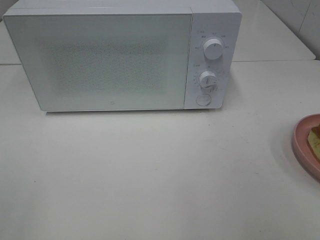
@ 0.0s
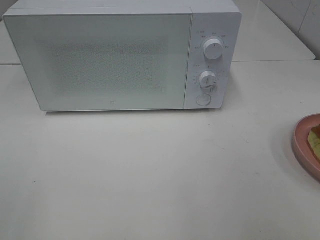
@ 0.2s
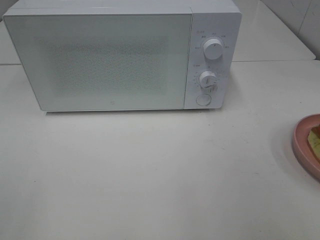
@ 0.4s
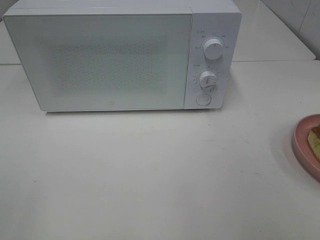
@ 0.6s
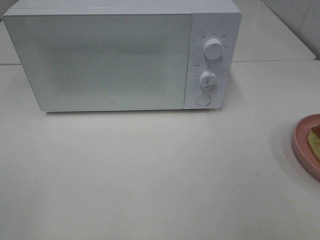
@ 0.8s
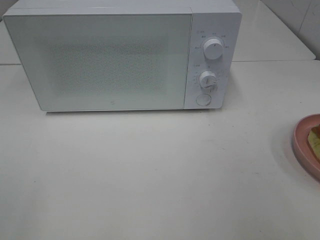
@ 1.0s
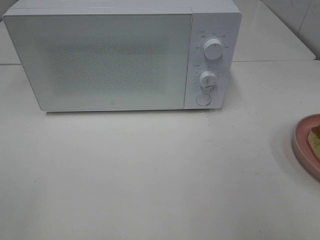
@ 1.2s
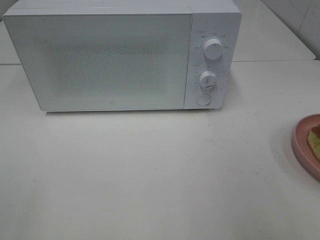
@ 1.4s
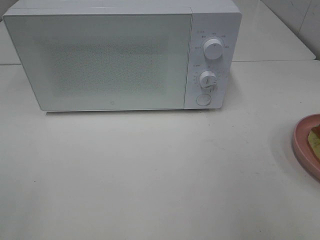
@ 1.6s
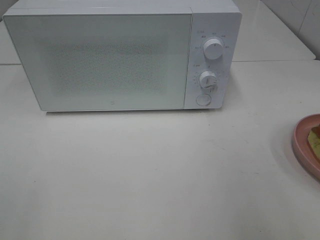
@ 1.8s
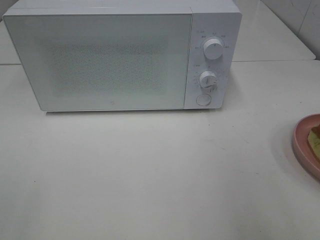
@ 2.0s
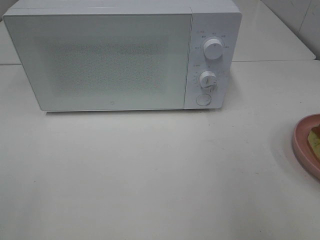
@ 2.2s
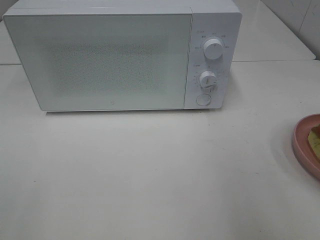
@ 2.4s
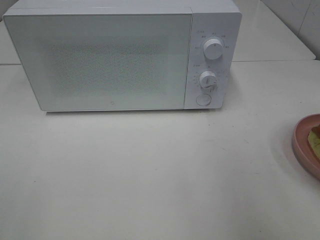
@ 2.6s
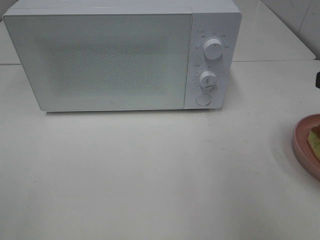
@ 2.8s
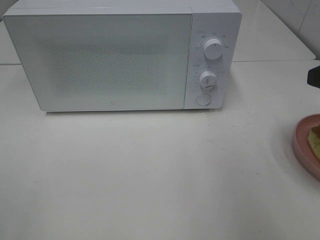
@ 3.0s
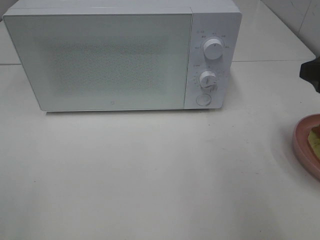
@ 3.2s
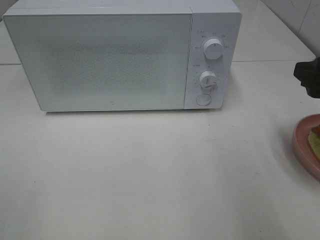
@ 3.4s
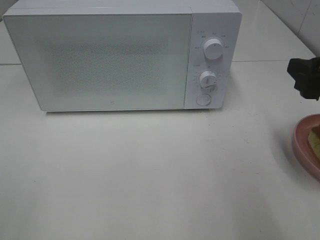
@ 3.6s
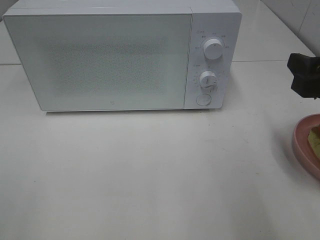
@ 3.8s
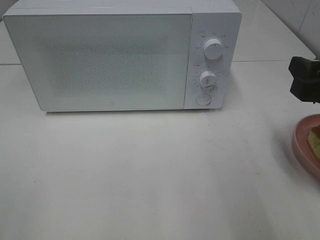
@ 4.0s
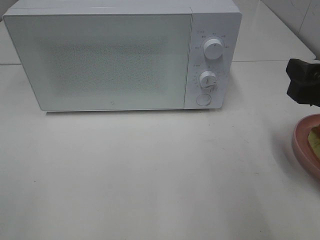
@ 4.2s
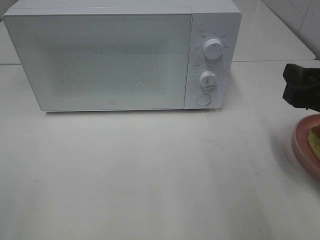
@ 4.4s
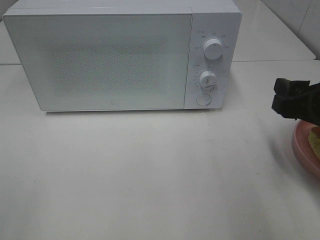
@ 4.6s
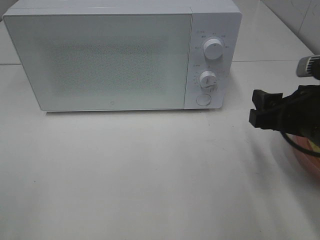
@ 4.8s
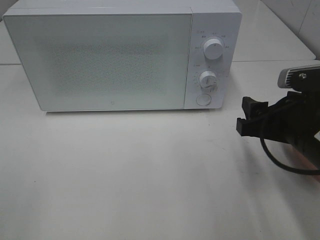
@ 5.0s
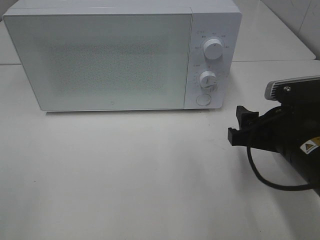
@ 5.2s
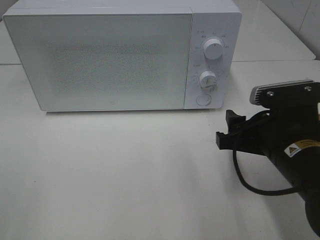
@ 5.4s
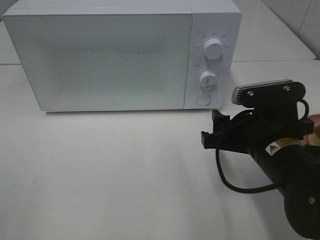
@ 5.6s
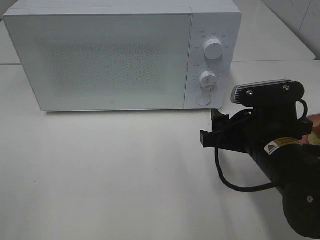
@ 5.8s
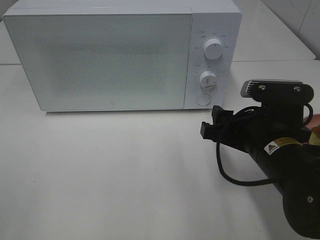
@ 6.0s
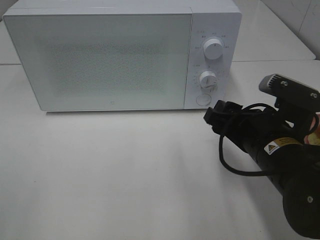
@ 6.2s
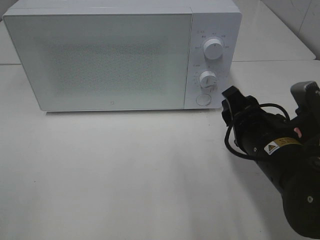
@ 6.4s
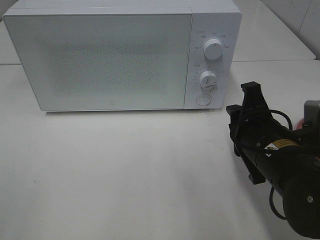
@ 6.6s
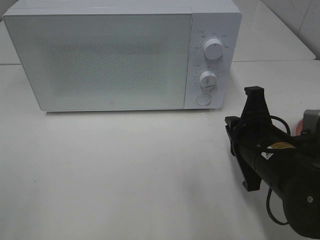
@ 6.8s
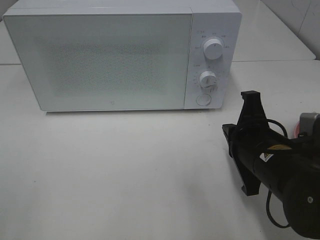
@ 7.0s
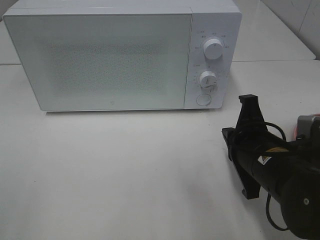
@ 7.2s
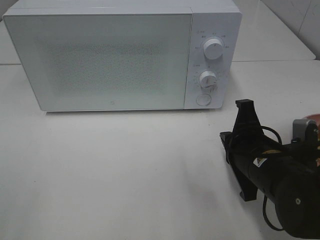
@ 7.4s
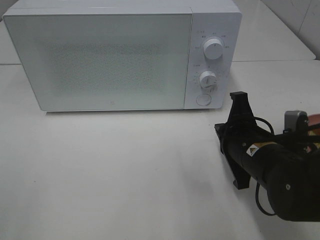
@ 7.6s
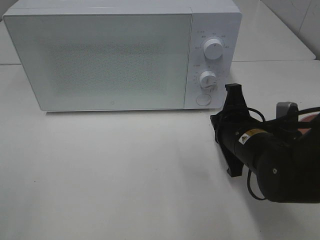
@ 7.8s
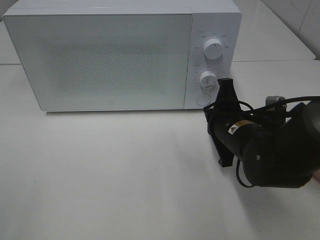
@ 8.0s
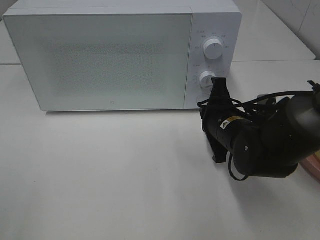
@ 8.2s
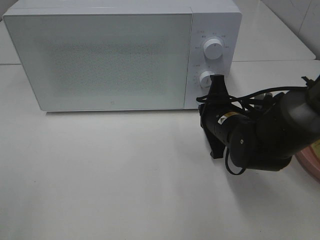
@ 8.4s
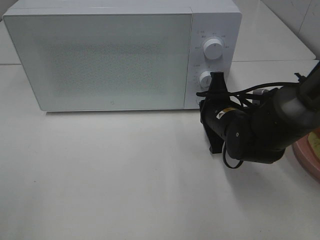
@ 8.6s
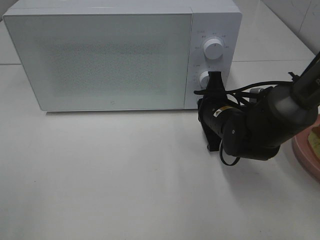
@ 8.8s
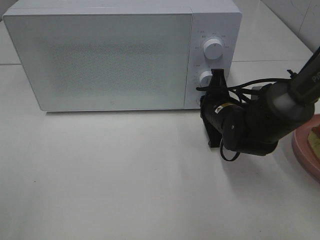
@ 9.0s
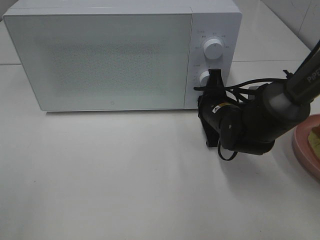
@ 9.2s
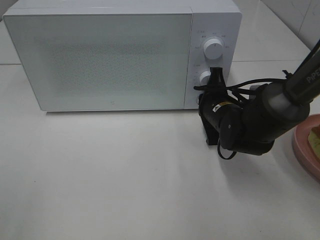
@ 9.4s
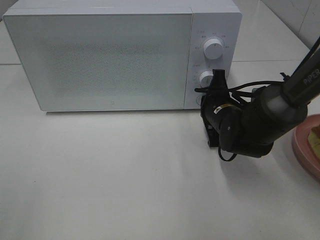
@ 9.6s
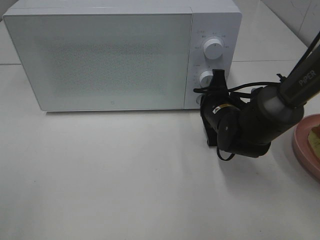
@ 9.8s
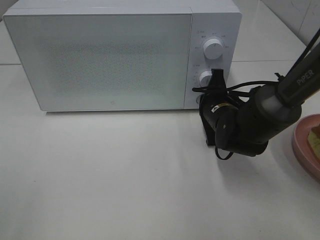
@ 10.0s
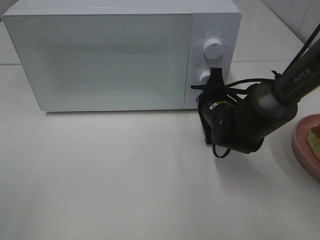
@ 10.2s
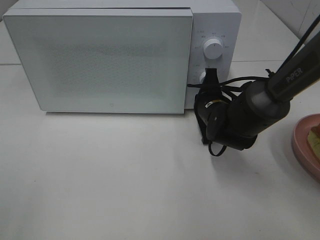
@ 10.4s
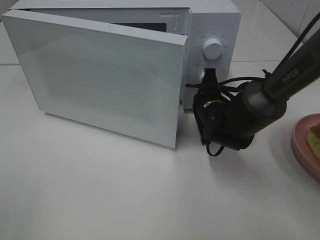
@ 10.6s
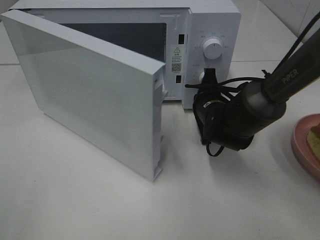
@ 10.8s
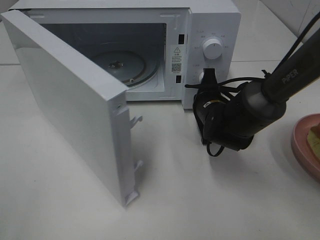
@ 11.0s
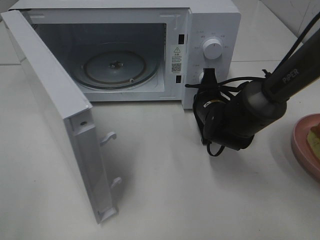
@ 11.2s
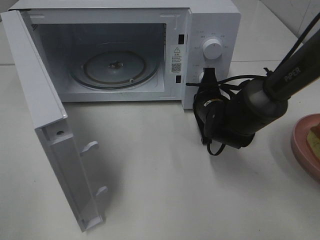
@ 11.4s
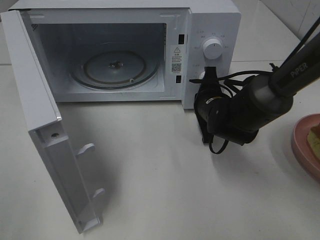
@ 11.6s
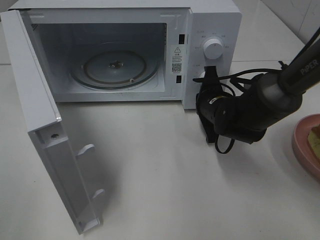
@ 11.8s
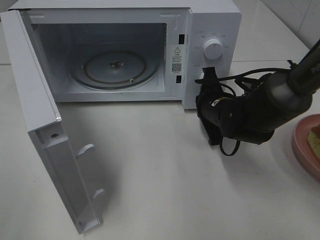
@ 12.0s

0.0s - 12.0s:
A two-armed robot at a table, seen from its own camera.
Task of the whole recording: Heat Sandwich.
3.0s - 4.4s: The right gripper is displaced downward by about 5 cm.
4.4s - 6.0s: The right gripper moves to the left and downward, some 10 cm.
6.0s - 7.6s: The right gripper closes up.
7.6s - 9.0s: The right gripper is displaced forward by about 10 cm.
9.0s - 10.4s: The grippers make only small movements.

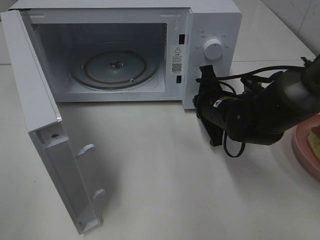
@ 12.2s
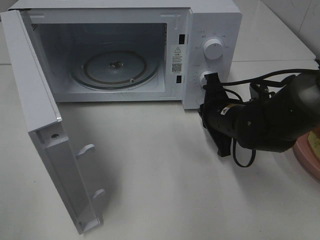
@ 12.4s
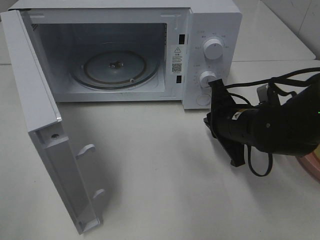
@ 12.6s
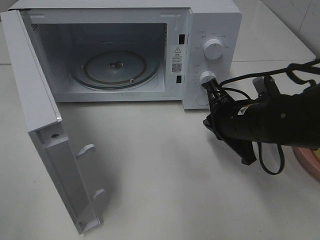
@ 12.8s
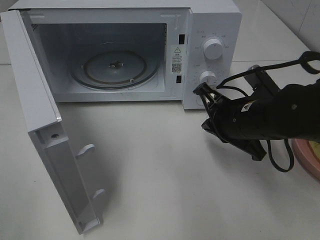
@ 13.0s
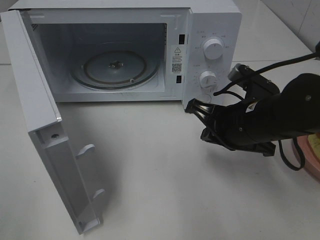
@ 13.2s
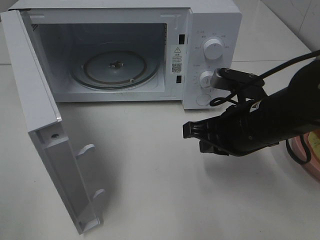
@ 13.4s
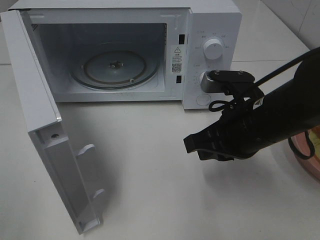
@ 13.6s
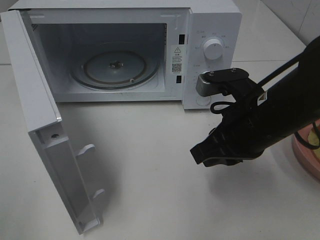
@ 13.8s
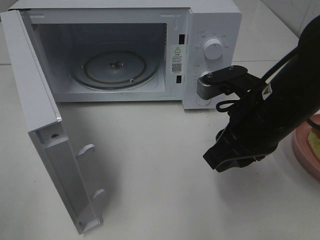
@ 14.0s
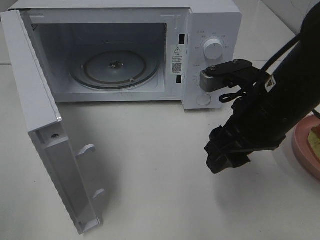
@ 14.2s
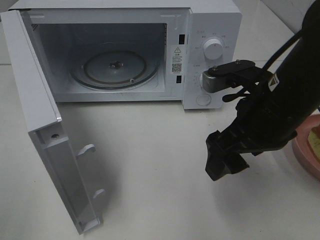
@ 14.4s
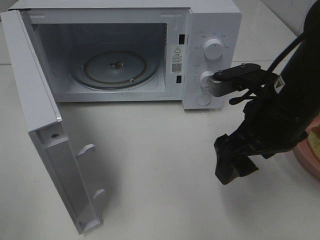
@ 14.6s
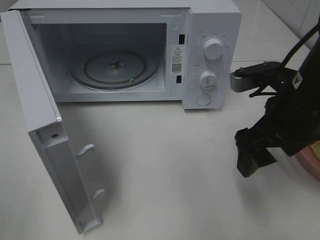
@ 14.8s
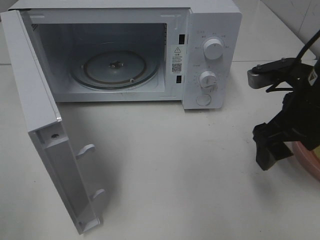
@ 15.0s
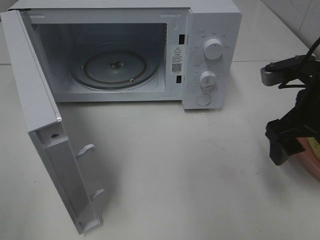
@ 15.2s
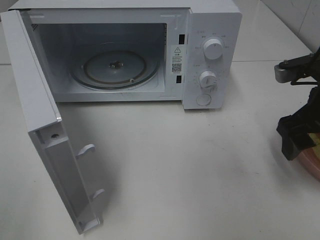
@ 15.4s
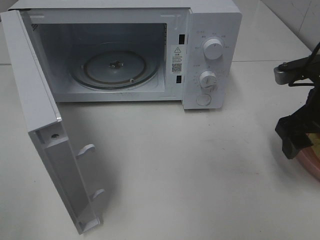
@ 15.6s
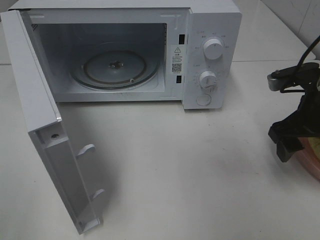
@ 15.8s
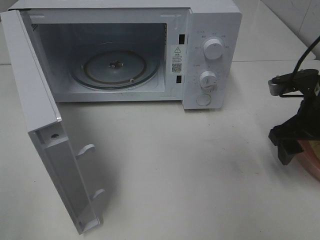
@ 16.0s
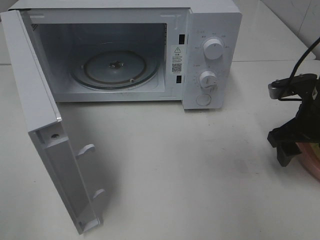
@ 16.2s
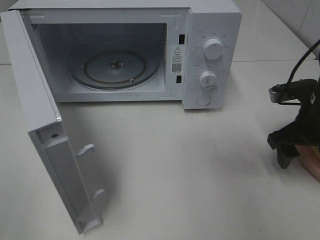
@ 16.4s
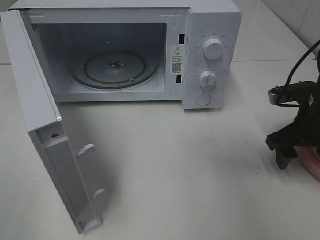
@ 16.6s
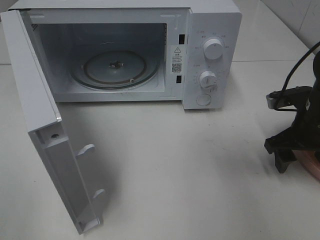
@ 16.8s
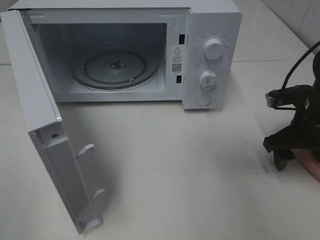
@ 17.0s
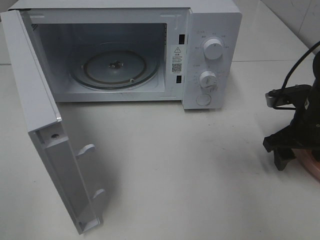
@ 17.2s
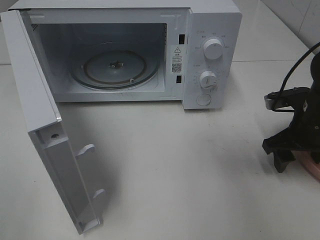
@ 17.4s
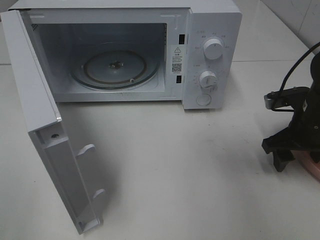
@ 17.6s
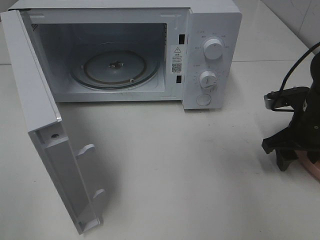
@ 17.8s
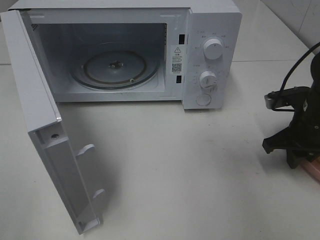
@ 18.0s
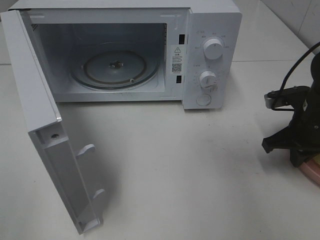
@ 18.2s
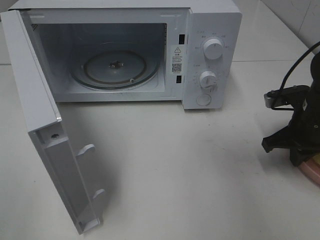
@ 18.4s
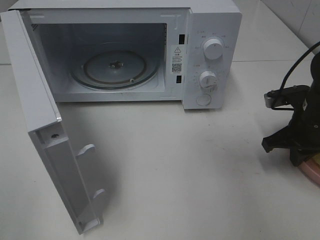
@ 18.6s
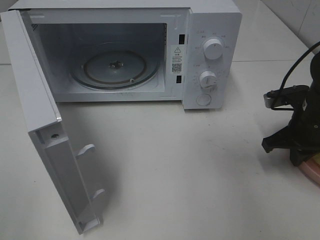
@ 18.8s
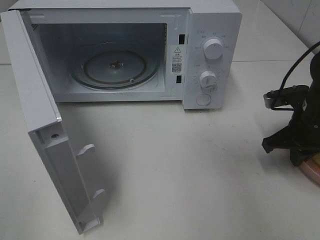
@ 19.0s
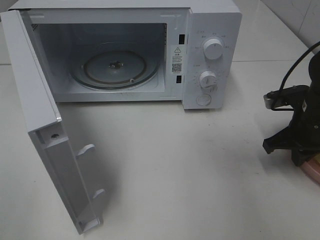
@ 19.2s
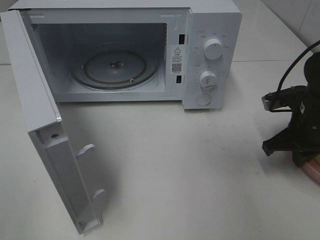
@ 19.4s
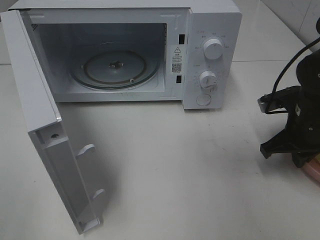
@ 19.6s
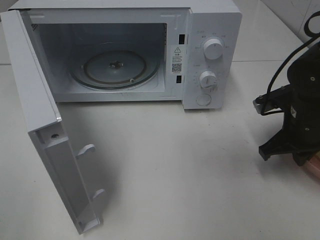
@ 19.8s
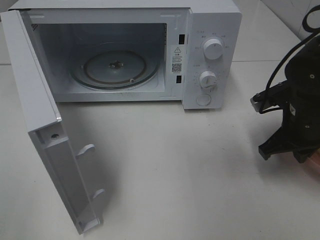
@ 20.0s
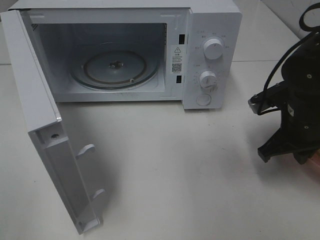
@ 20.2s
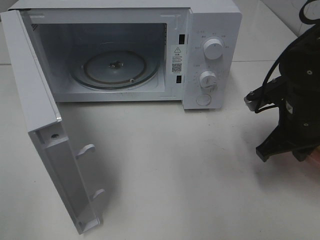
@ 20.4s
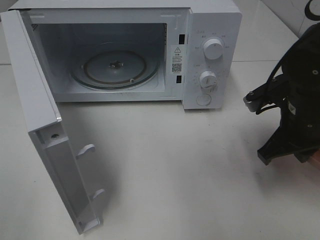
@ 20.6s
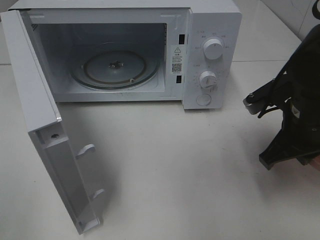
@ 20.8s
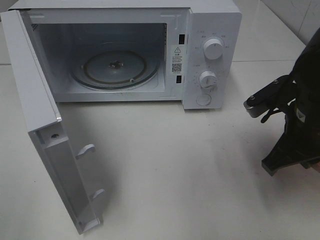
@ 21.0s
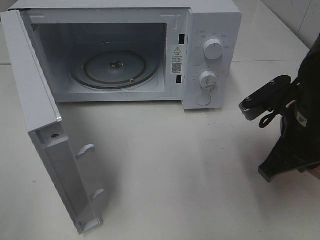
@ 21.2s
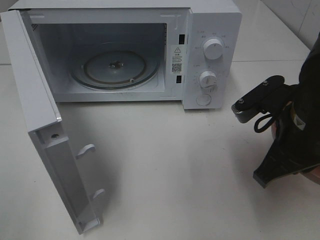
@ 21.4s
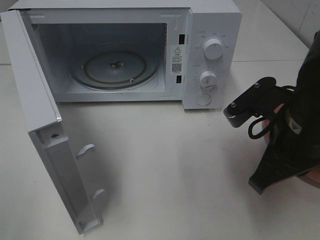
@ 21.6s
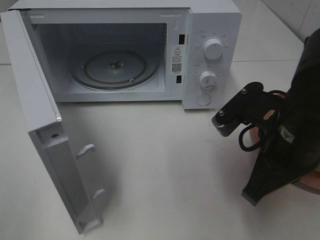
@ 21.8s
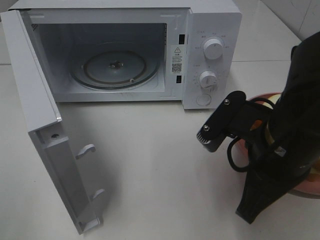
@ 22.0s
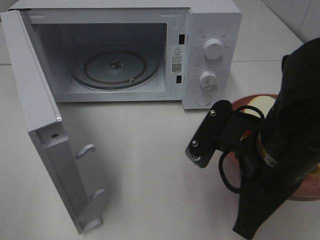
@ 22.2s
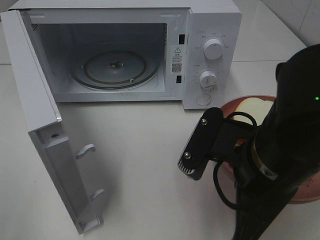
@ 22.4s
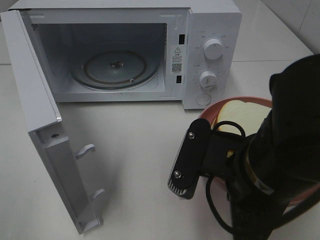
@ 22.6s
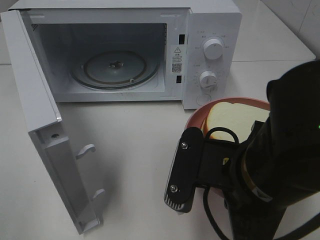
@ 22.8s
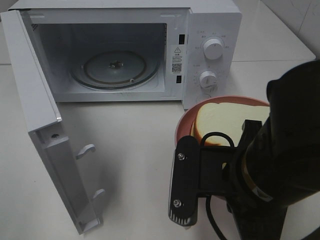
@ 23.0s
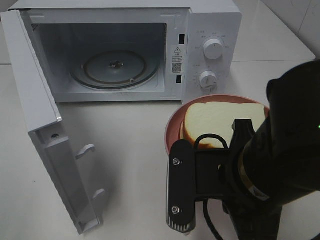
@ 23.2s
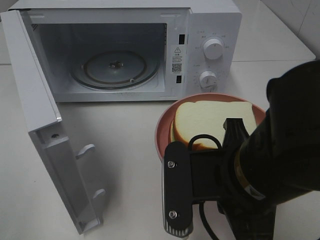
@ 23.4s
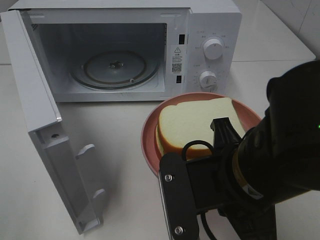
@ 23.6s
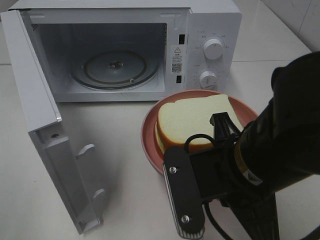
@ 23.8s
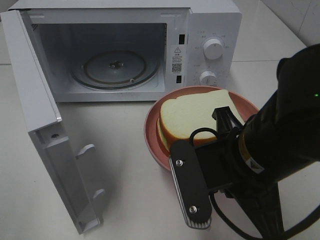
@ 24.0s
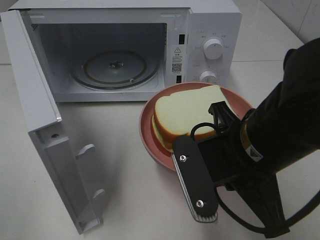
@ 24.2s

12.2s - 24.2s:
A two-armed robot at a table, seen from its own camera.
Task of the whole recording: Heat Sandwich.
Step, 12.2s - 18.8s: Right hand: grab the plate with the sandwich.
12.2s - 13.8s: The right gripper moves backward and upward, some 15 cm.
13.8s - 15.2s: The right gripper shifts some 10 cm to the right, and opens its fingers.
15.2s - 16.6s: The right gripper travels downward by some 10 cm.
16.6s - 18.2s: The right gripper closes its fingers.
18.2s - 19.8s: The grippers move only a little.
19.8s - 21.2s: The right gripper goes roughly 10 cm backward, upward and to the left.
21.2s - 22.6s: The right gripper moves to the left and backward, some 10 cm.
